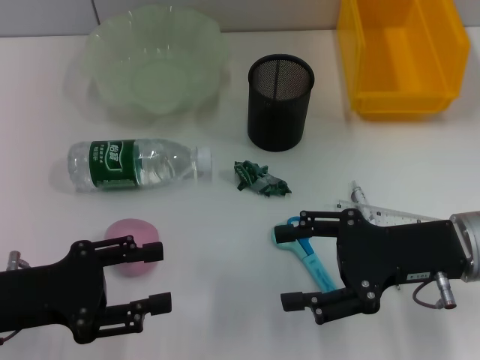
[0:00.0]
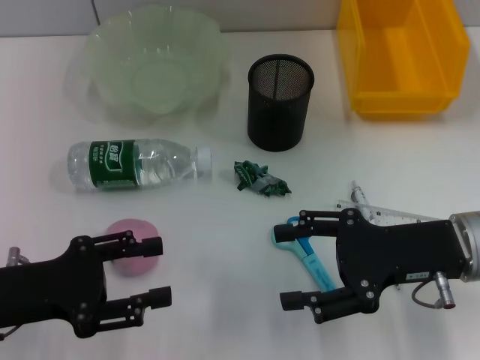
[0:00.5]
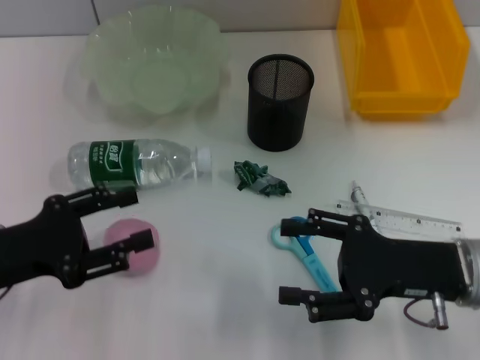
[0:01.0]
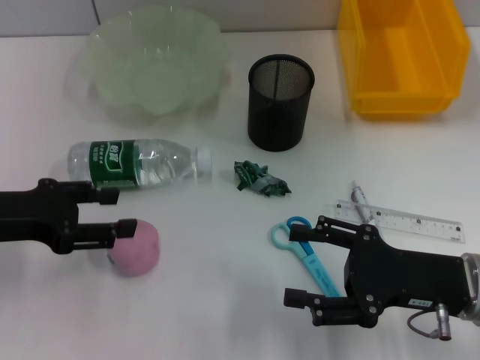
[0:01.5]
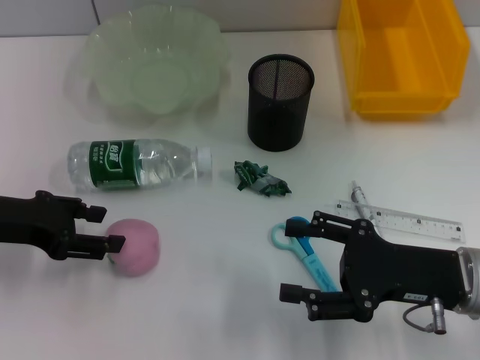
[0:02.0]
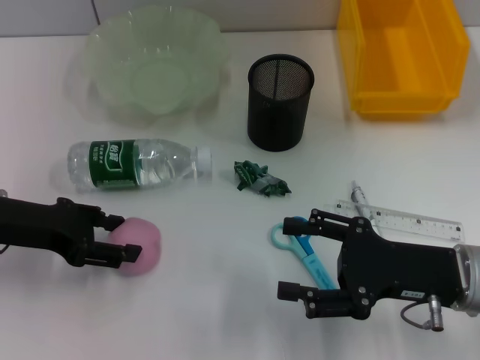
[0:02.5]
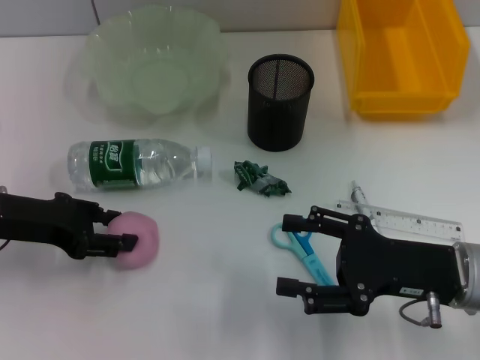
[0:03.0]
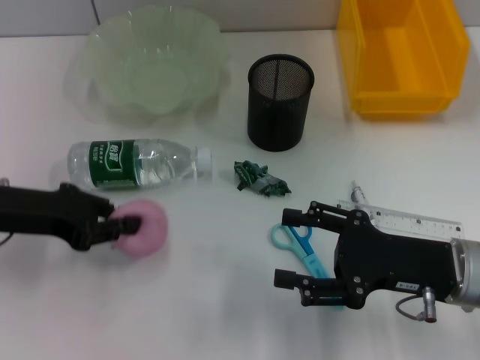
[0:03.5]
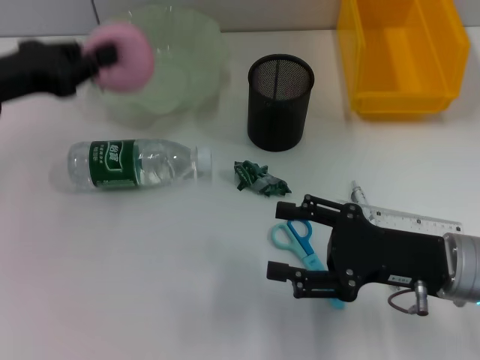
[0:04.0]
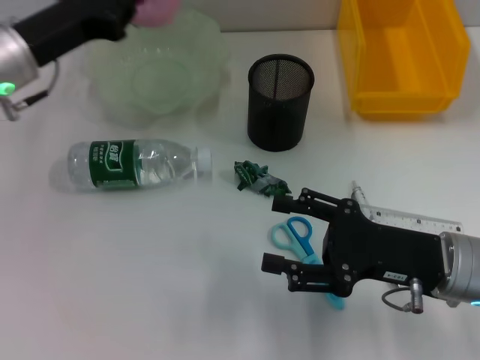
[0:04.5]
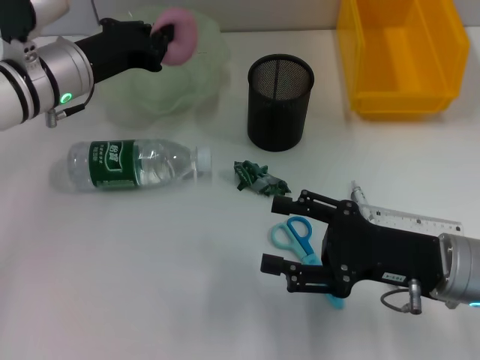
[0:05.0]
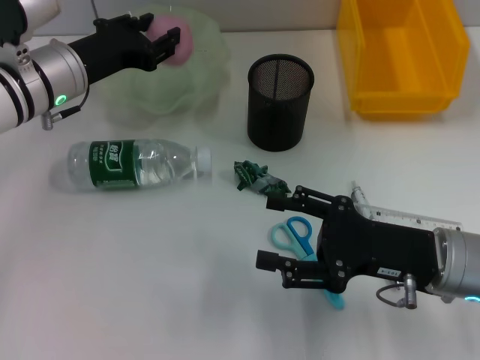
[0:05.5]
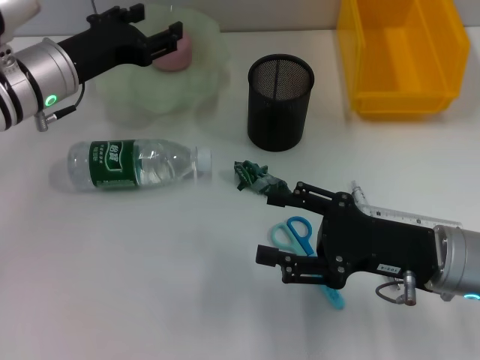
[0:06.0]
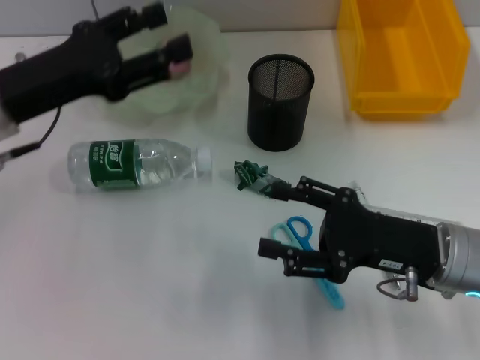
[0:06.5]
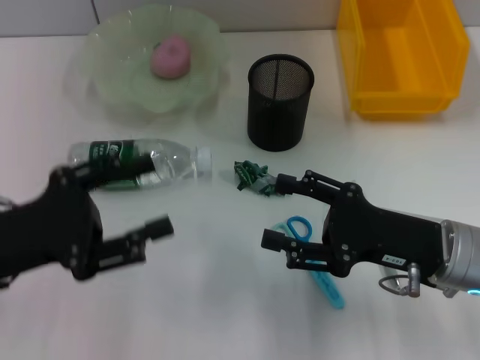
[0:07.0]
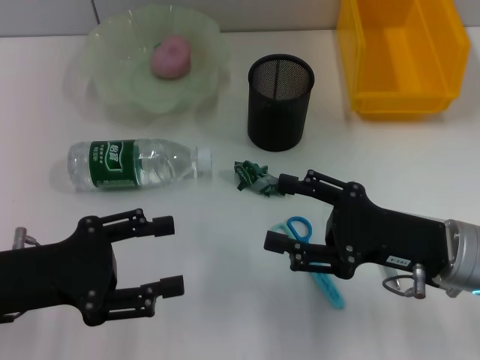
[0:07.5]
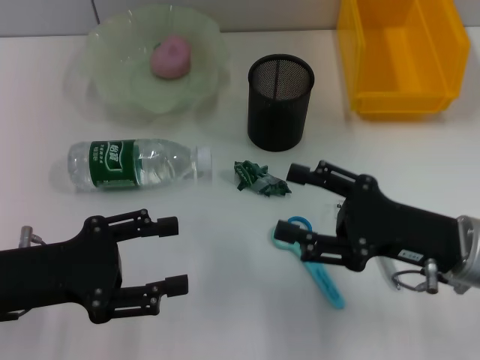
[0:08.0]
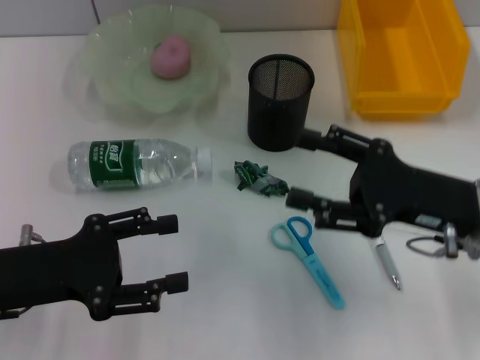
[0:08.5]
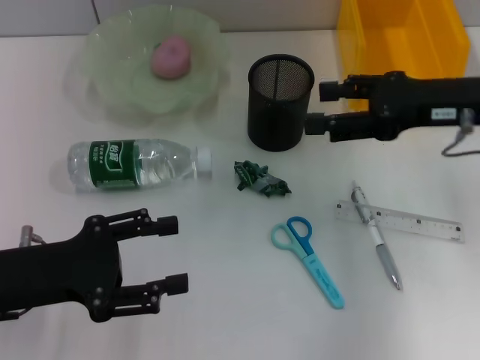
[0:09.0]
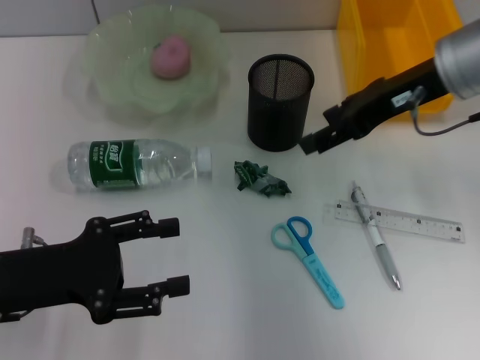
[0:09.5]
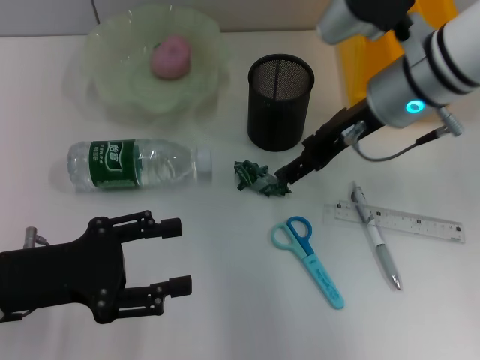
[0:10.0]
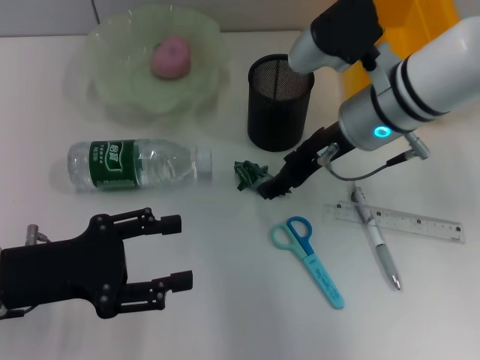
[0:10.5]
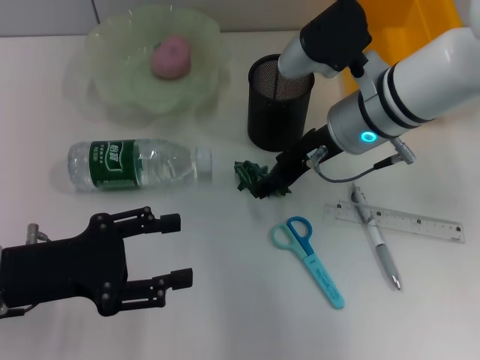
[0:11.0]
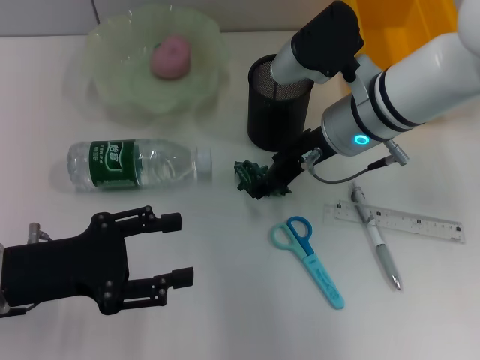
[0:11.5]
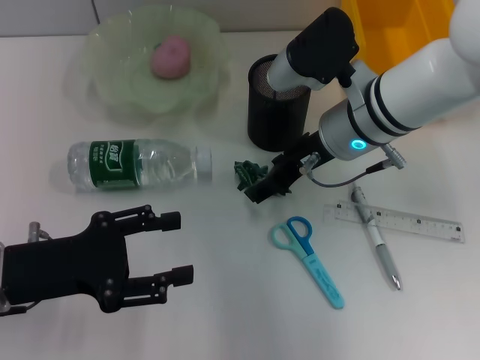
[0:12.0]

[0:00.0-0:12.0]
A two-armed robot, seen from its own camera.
Step, 0:00.0 to 0:03.0: Grab the peach with the left hand.
Step, 0:03.5 to 0:05.5: Place the peach into the fruit bowl with the left hand.
0:00.0 to 0:02.0: The left gripper goes roughly 10 cm forward.
0:02.0 to 0:04.0: The left gripper ends up about 5 cm from where it was, and closes.
0:04.0 to 0:06.0: The left gripper heads to the right and forward, covering about 10 cm, and opens its fingers.
0:06.0 to 0:08.0: The left gripper heads backward, covering approximately 20 cm.
0:08.0 to 0:10.0: The right gripper shifts some 20 cm forward, upward and to the left.
0:10.0 to 0:12.0: The right gripper changes place by roughly 5 cm.

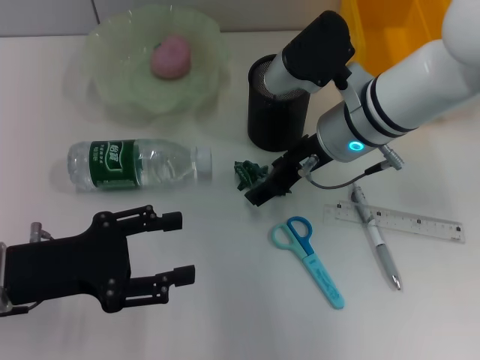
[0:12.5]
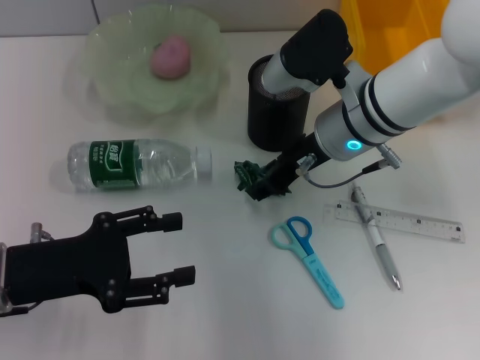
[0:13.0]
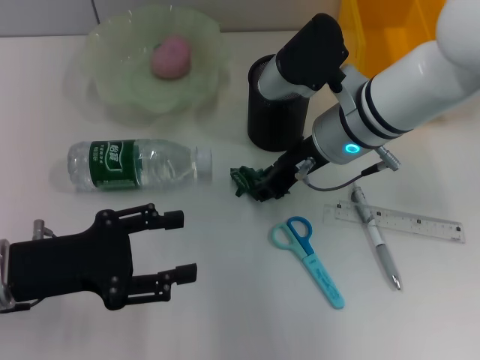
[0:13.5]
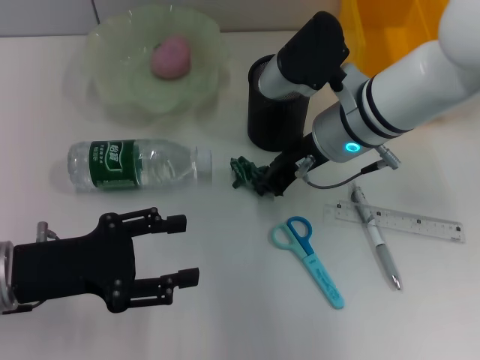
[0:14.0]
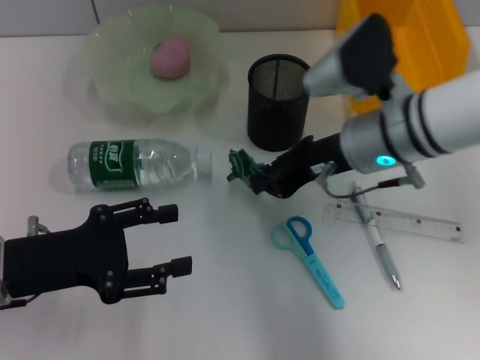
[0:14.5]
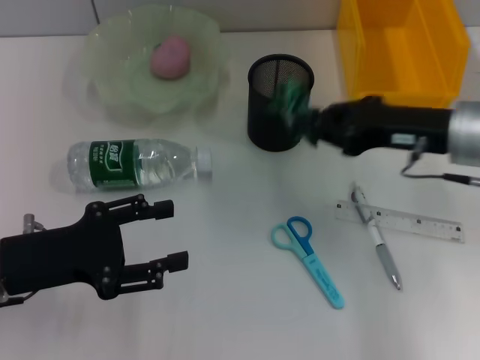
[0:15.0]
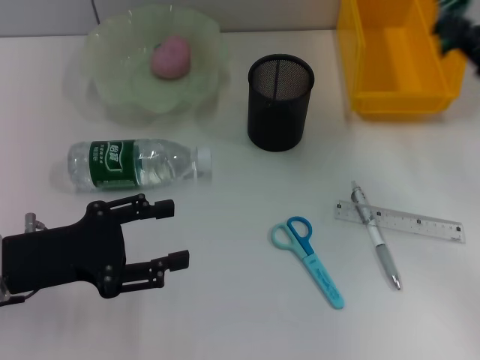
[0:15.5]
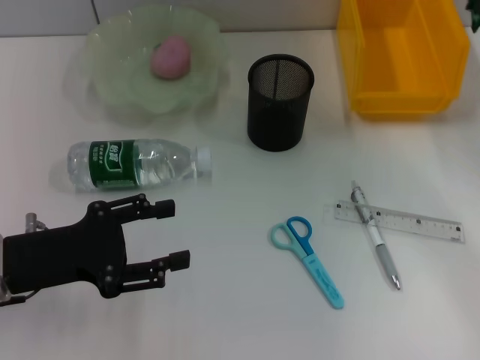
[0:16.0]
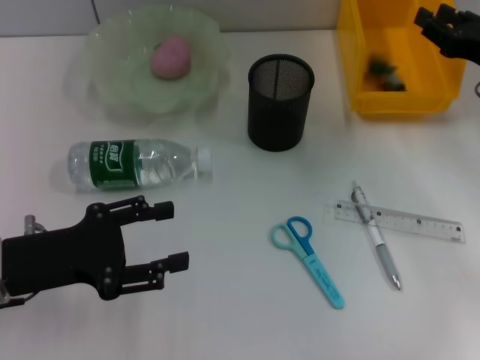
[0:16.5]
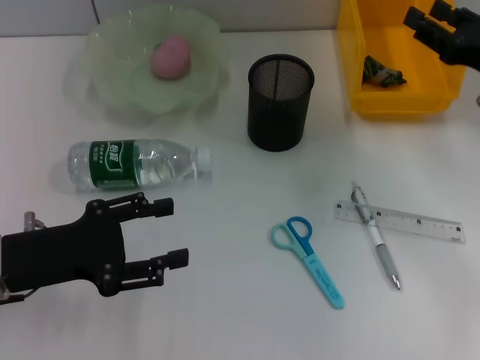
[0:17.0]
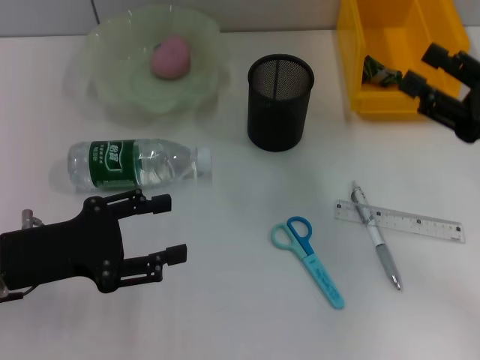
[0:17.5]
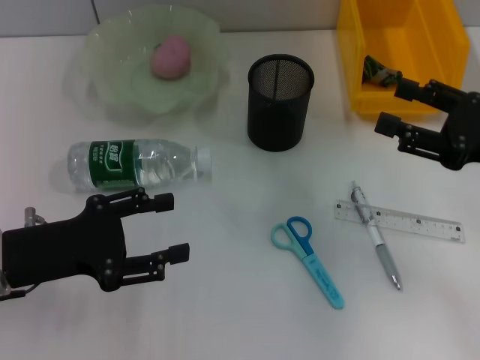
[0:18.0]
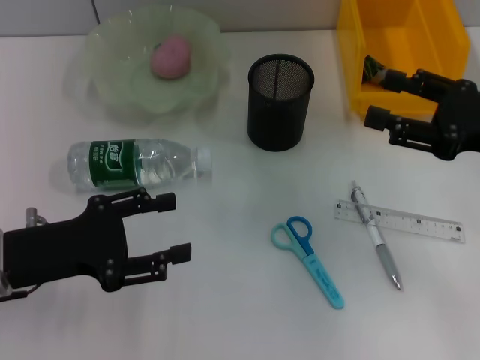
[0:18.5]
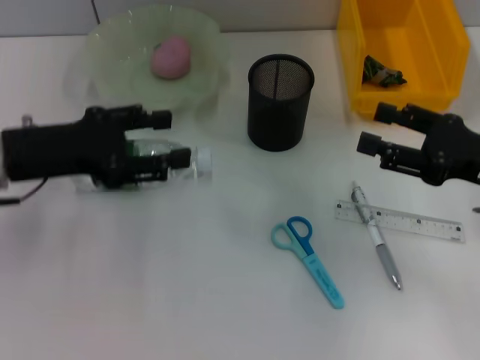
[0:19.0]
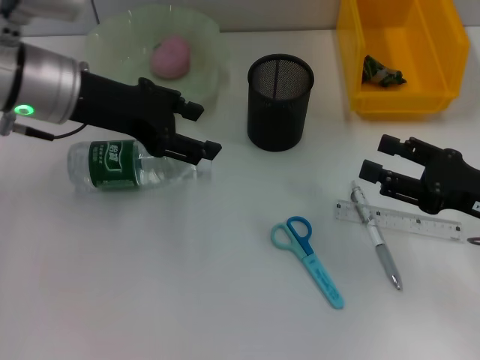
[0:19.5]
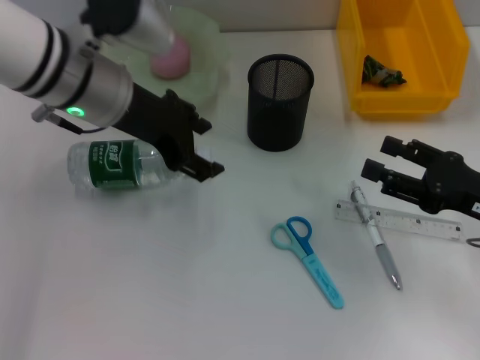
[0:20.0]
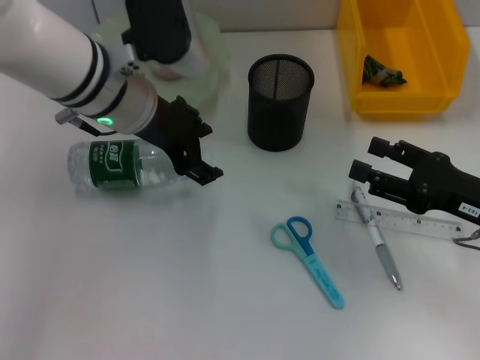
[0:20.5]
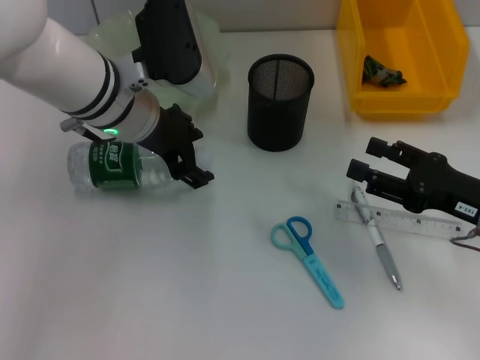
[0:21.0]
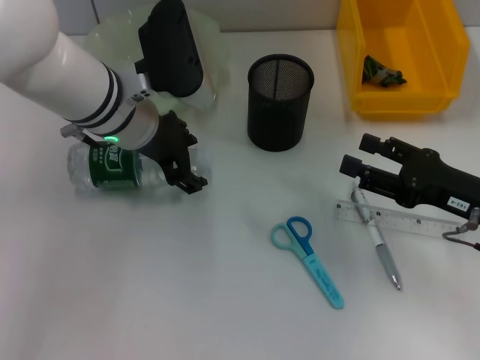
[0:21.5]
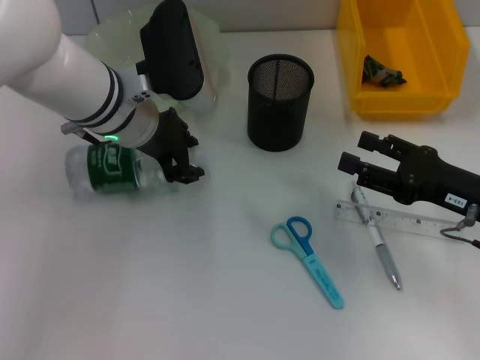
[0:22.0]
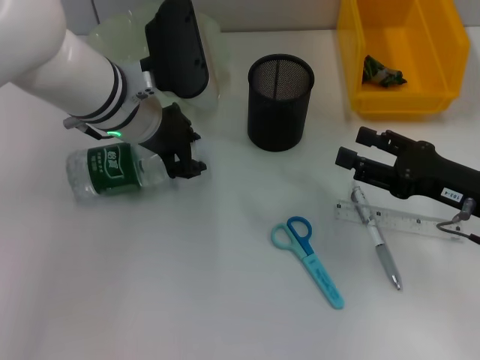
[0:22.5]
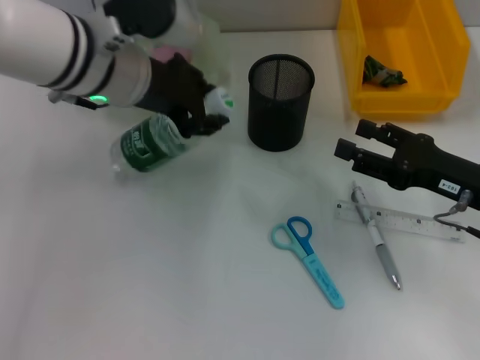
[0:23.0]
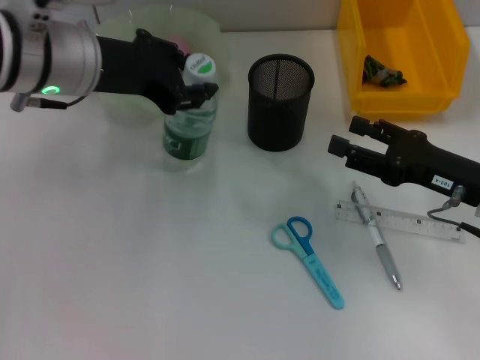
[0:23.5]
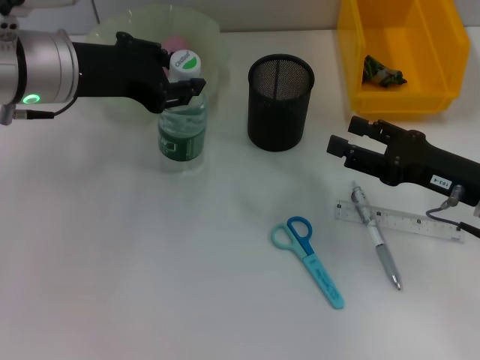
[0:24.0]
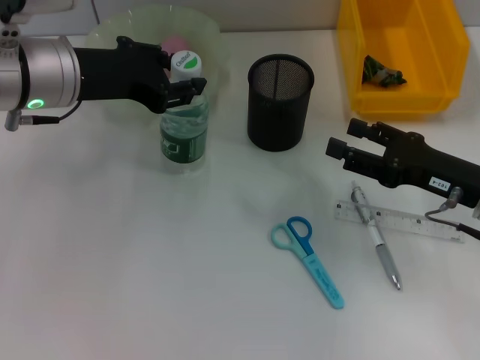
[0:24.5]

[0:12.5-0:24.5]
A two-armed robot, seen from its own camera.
Step, 0:14.5 to 0:16.5: Place the plastic into the trash can with the right hand.
Step, 0:17.0 to 0:22.0: Grab the water bottle with the left hand.
0:12.5 to 0:14.5: The right gripper closes.
0:14.5 to 0:16.5: The right gripper travels to the right by about 15 cm.
0:16.5 to 0:18.5: The right gripper travels backward by roughly 10 cm, and opens its fingers.
0:18.5 to 0:20.5: The left gripper heads forward, to the right and upward, covering approximately 20 cm. Meanwhile the right gripper goes about 5 cm downward.
0:20.5 to 0:22.5: The left gripper closes its fingers.
0:22.5 to 0:24.5: The left gripper shifts some 5 cm to the left.

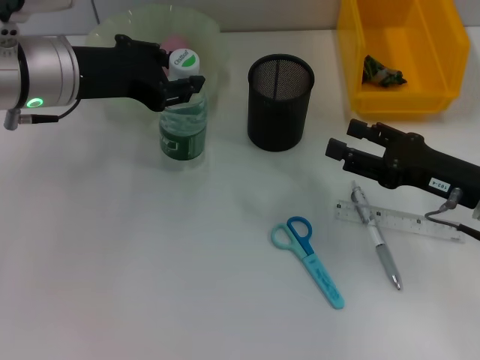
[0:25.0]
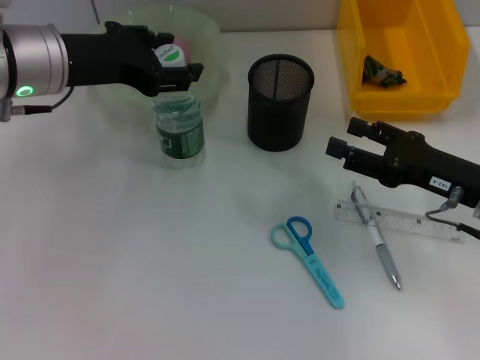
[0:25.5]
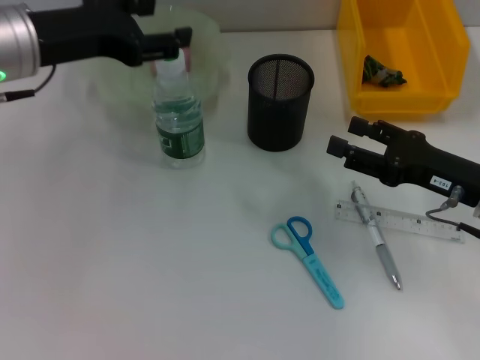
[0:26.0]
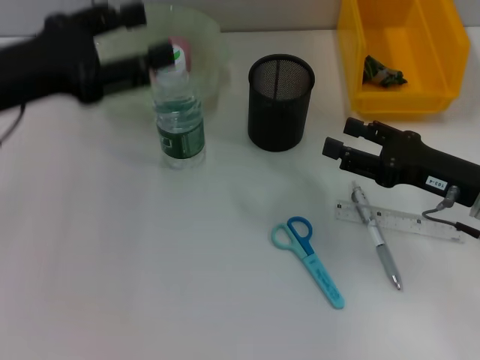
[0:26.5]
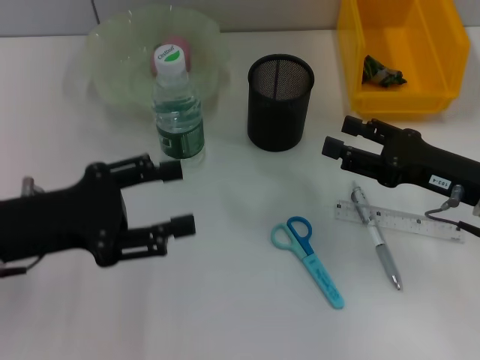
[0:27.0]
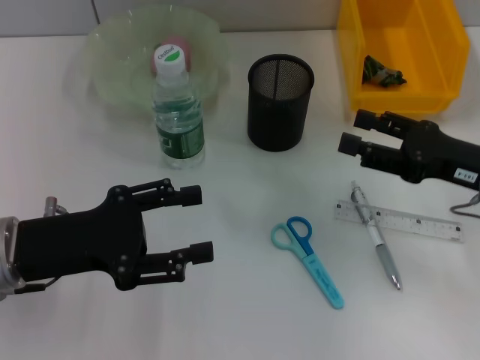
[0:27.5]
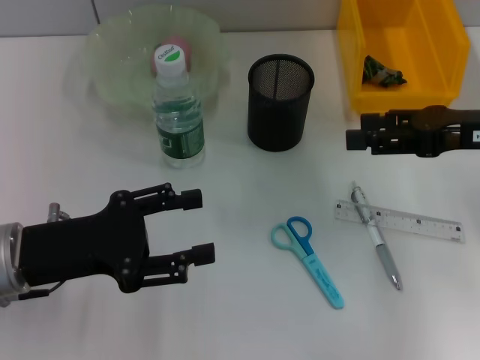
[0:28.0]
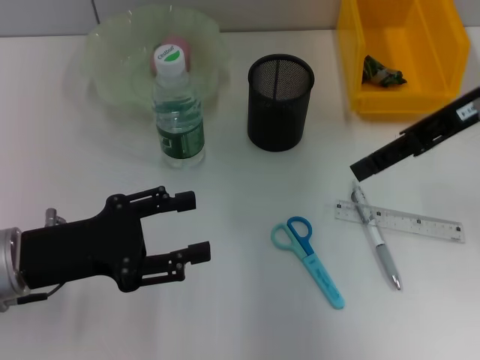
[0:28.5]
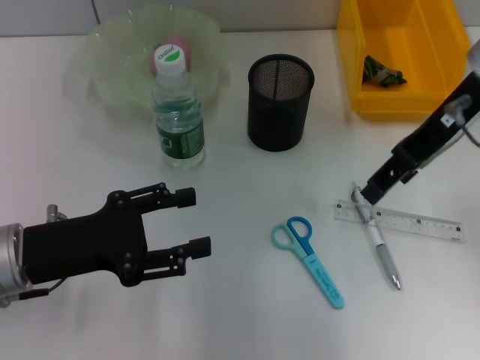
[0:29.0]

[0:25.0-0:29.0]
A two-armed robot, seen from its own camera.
0:25.0 to 0:27.0: The left gripper heads backward, downward and to the left, covering some 15 cm, and opens.
0:27.0 to 0:29.0: The right gripper moves upward, forward and to the left, some 20 cm.
